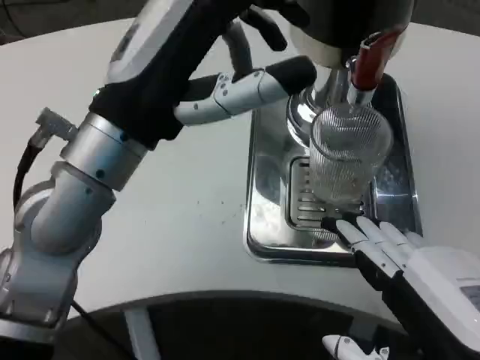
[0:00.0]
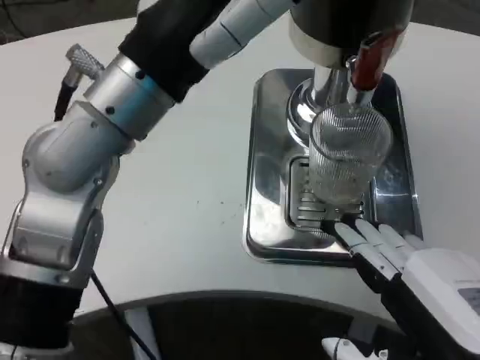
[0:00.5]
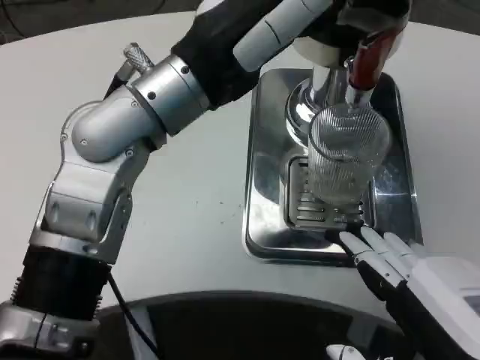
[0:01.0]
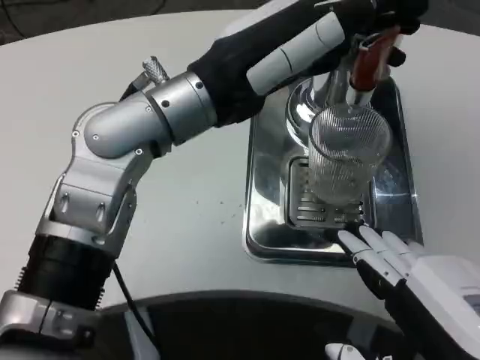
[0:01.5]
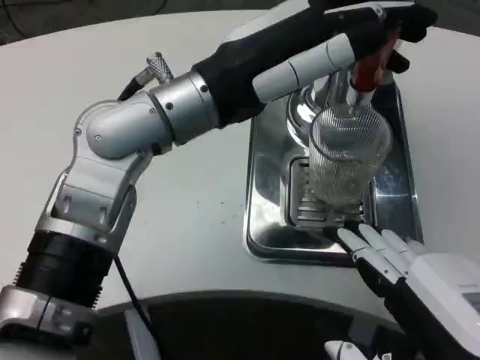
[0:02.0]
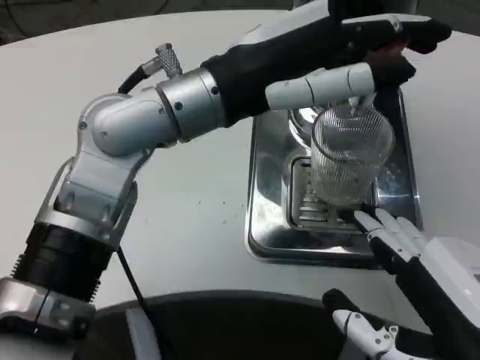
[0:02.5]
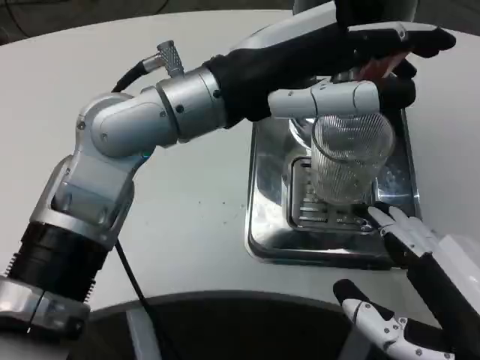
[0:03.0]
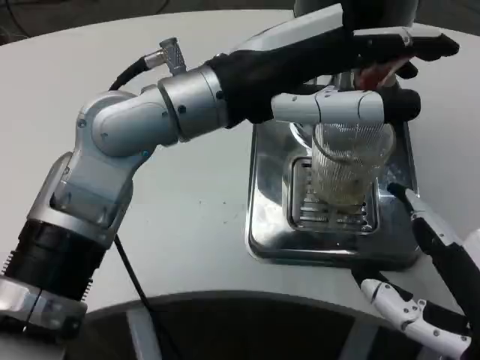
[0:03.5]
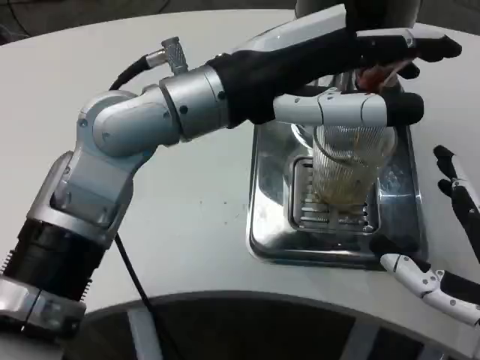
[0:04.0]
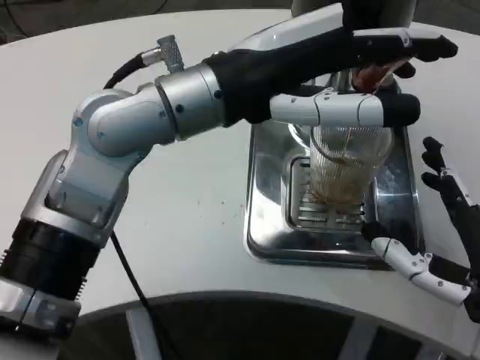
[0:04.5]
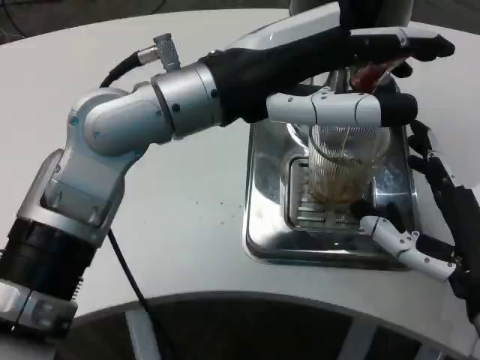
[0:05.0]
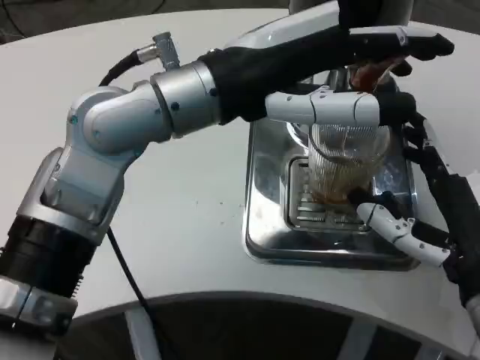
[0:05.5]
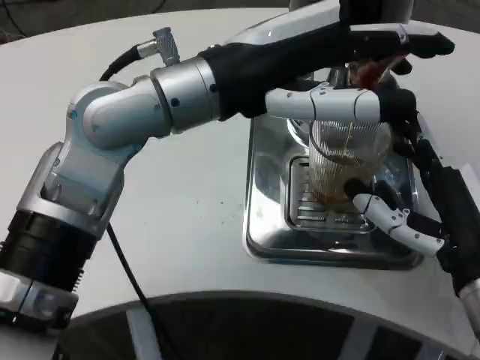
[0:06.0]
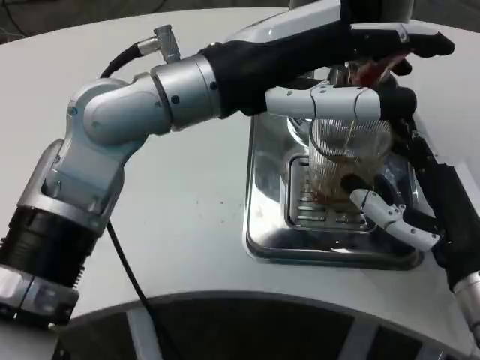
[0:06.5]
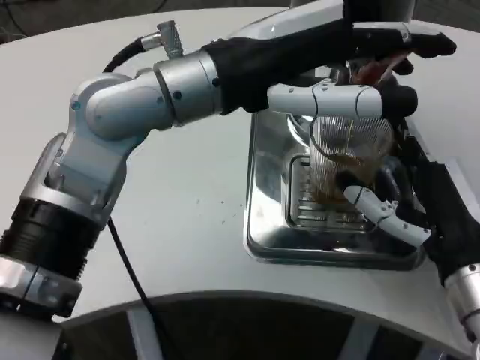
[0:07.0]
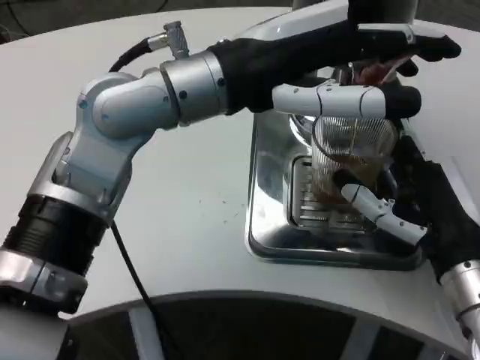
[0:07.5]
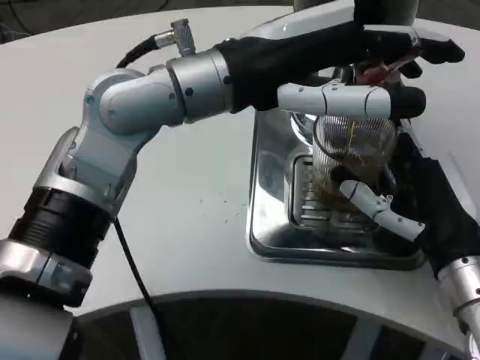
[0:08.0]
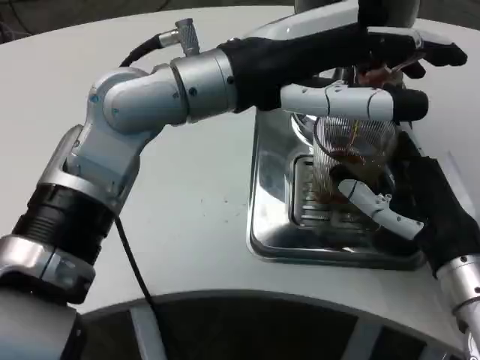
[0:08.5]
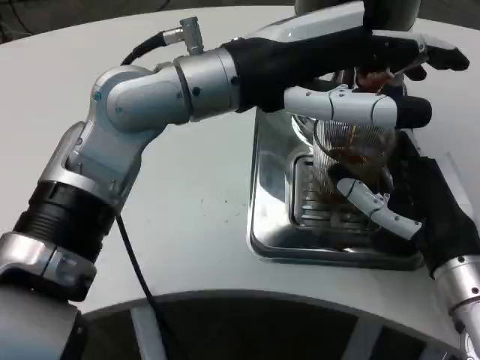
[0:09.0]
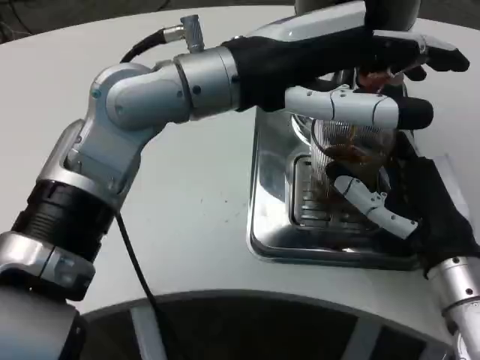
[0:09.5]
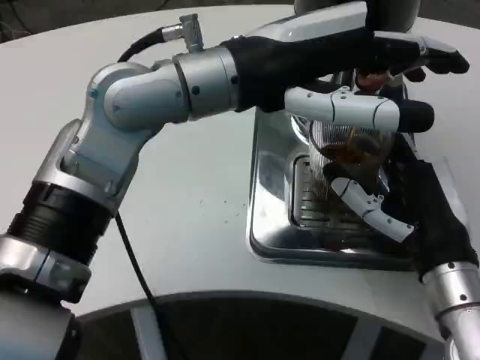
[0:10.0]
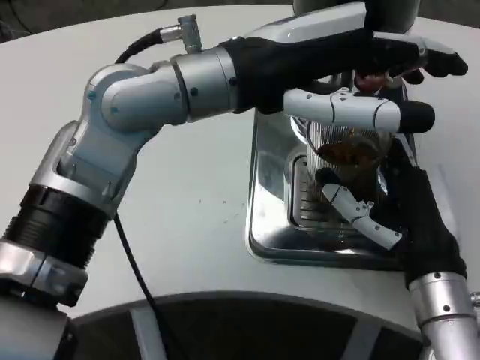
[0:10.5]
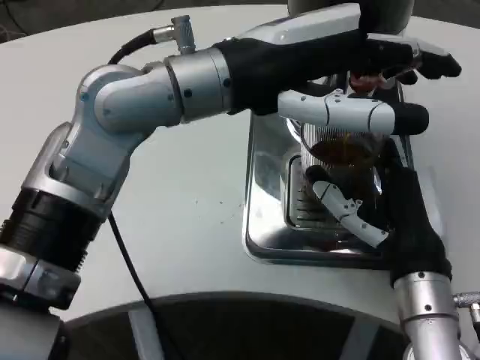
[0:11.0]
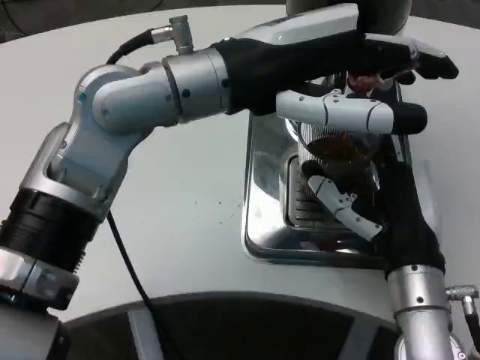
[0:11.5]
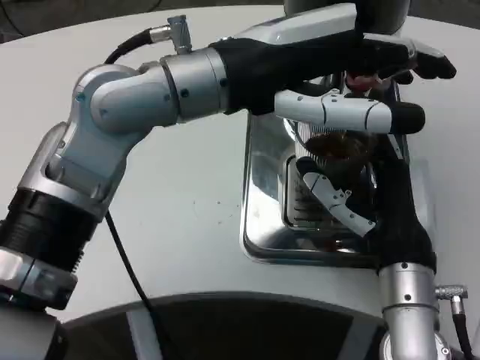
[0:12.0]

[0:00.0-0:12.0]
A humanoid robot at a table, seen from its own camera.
Task of the whole recording: Grasp the cup under the faucet to collect the drink, then remove the cup.
0:00.0 to 0:02.0: The left hand travels forward by approximately 5 cm.
0:02.0 to 0:04.0: The right hand heads forward, covering roughly 5 cm.
0:04.0 to 0:06.0: The right hand heads forward, covering about 5 cm.
0:10.0 to 0:12.0: The right hand ends up about 5 cm from where it was.

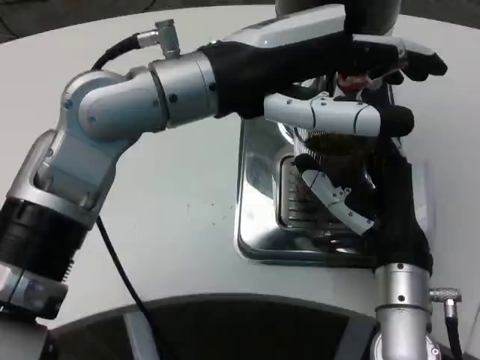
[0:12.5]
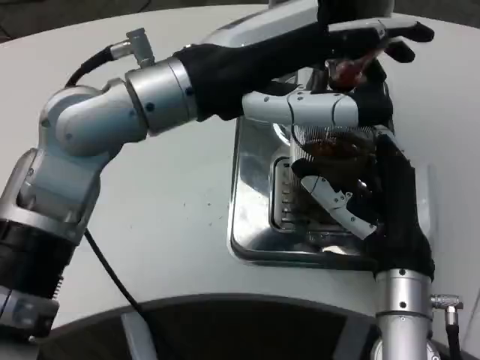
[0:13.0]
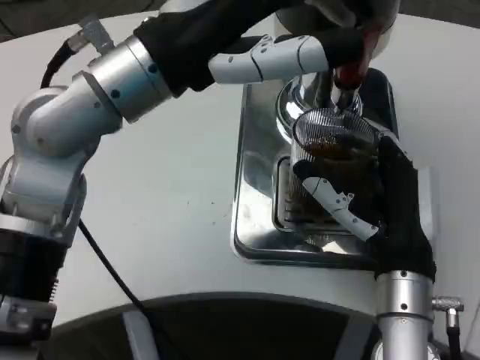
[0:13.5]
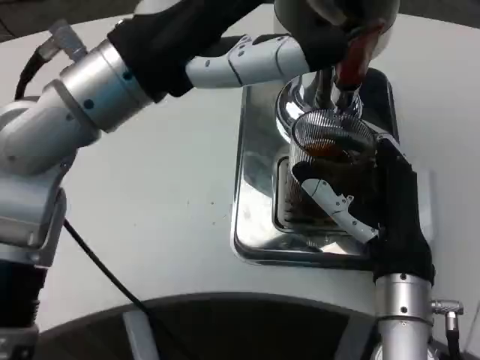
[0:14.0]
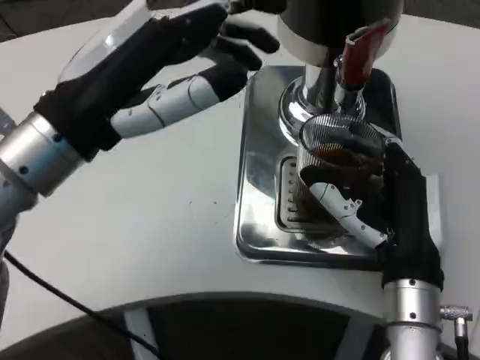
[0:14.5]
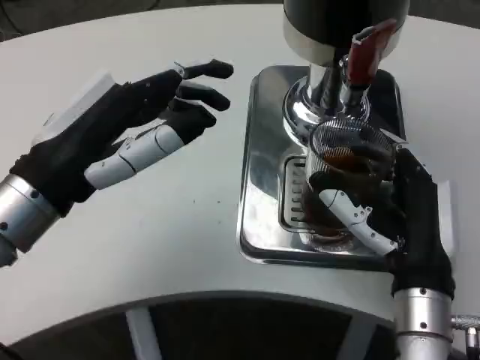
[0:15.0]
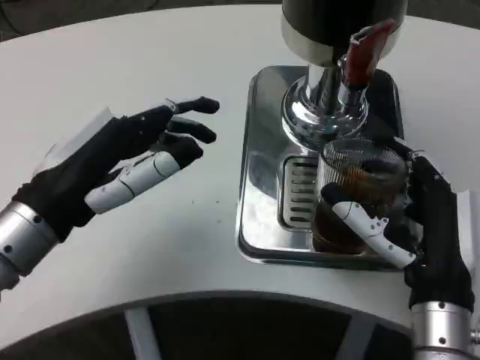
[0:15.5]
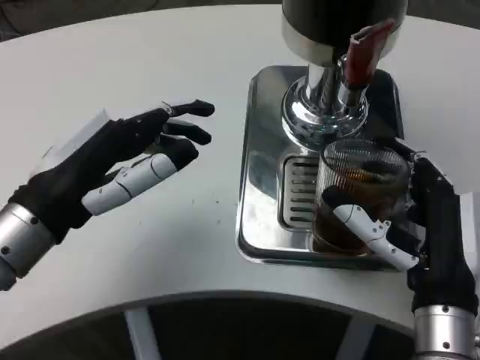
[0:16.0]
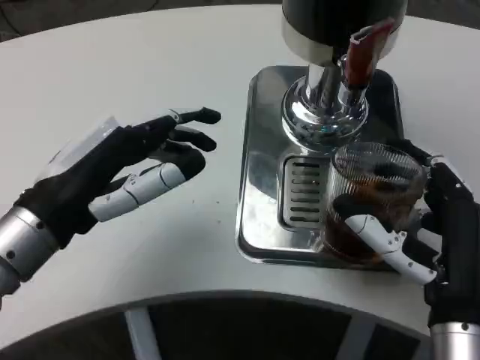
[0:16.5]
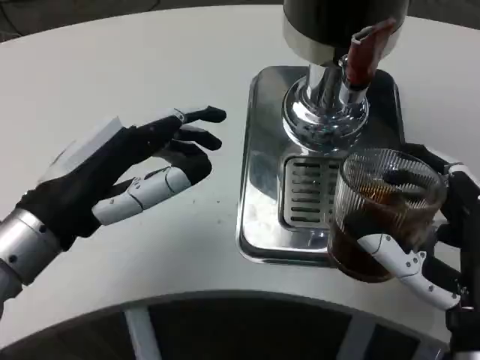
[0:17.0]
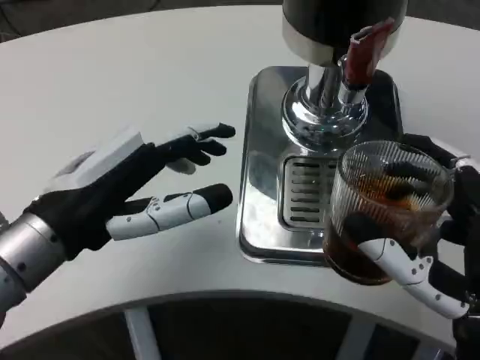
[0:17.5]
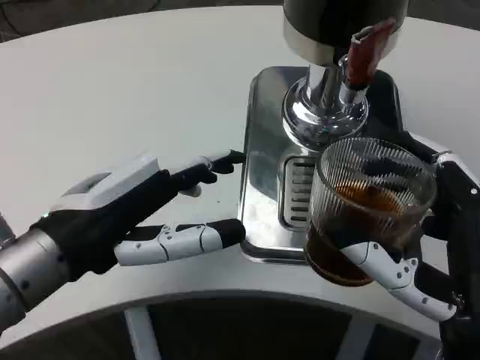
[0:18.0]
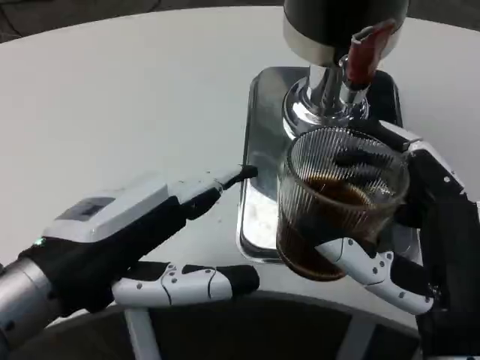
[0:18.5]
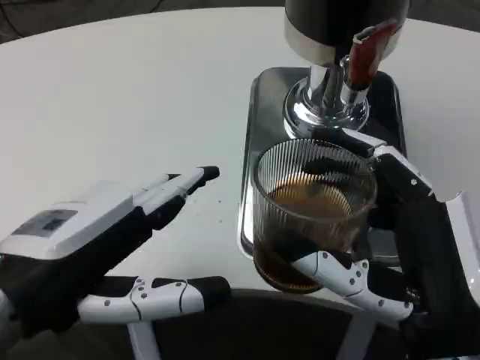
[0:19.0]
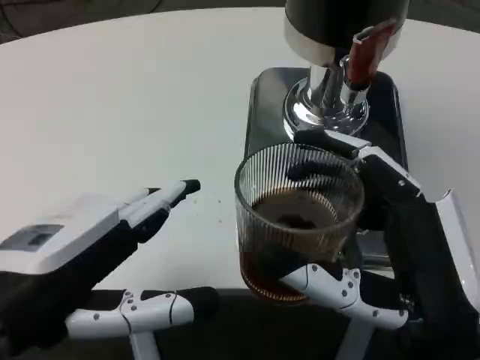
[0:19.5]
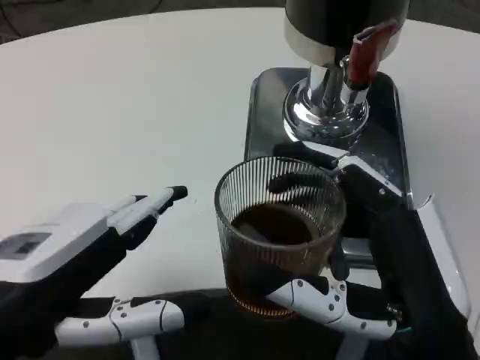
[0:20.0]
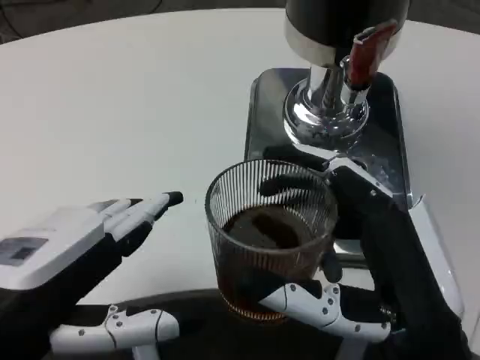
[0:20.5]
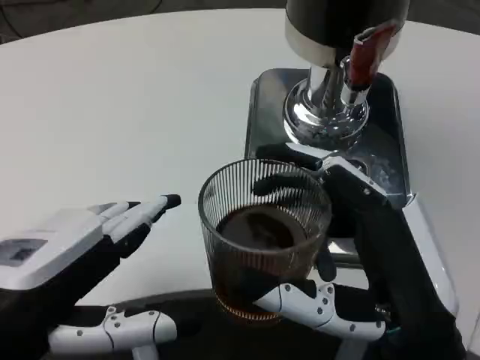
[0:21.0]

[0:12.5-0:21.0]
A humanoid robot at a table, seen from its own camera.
Task of the whole recording: Grasp the cup under the faucet to collect the drink, then remove the cup.
0:12.5 to 0:14.5: The left hand travels to the left and downward by approximately 10 cm.
0:14.5 to 0:16.5: The right hand moves some 5 cm, while the left hand is displaced downward by some 5 cm.
0:16.5 to 0:19.0: The right hand ends up some 5 cm from where it was. Meanwhile the left hand heads backward, covering about 10 cm.

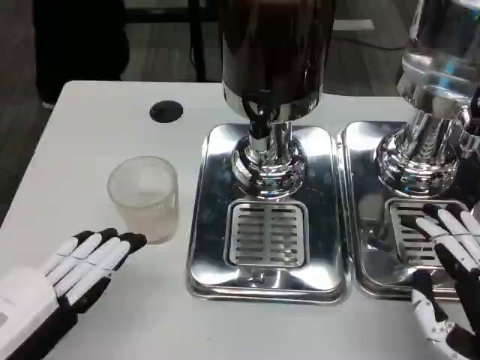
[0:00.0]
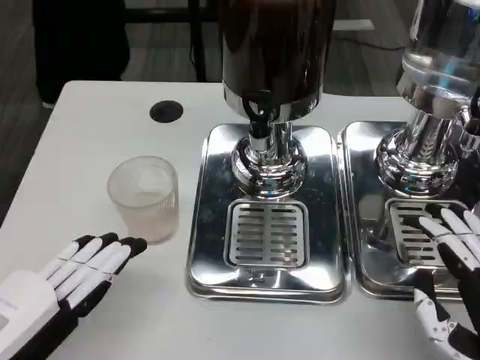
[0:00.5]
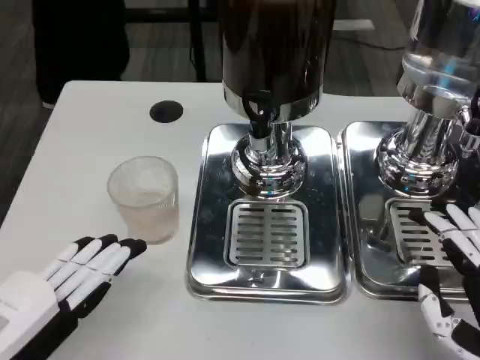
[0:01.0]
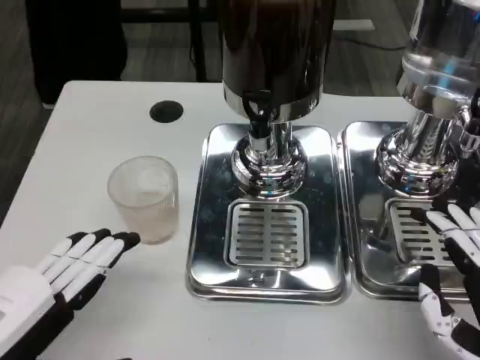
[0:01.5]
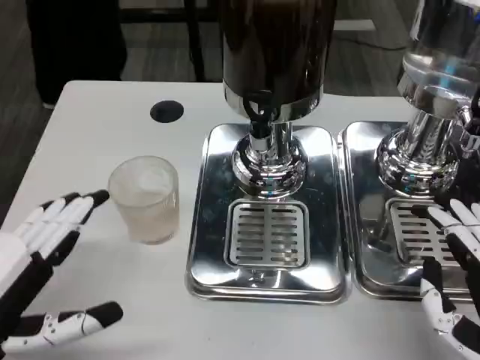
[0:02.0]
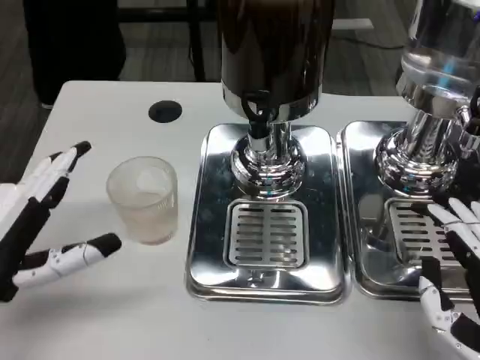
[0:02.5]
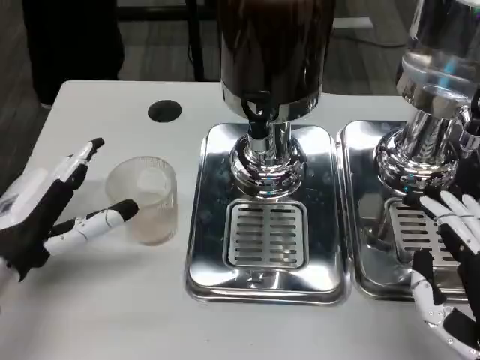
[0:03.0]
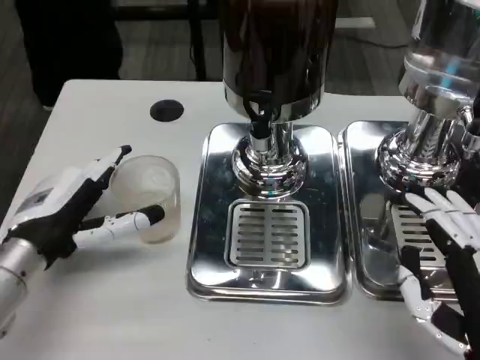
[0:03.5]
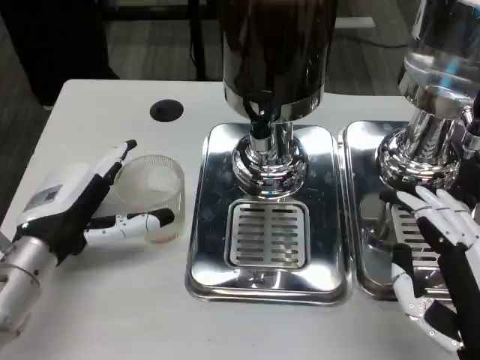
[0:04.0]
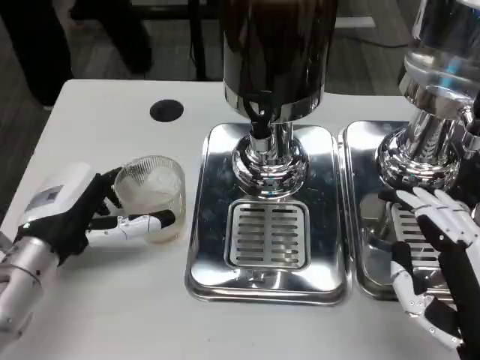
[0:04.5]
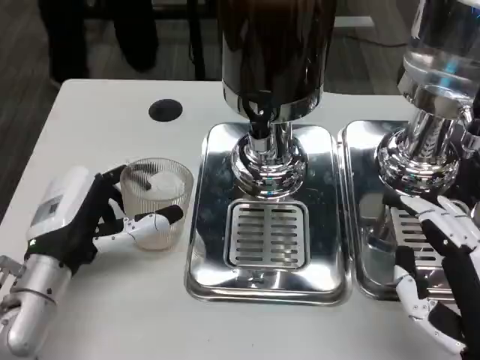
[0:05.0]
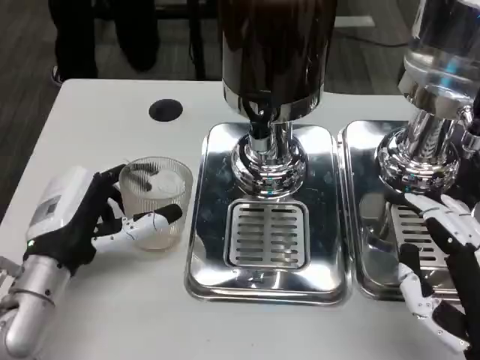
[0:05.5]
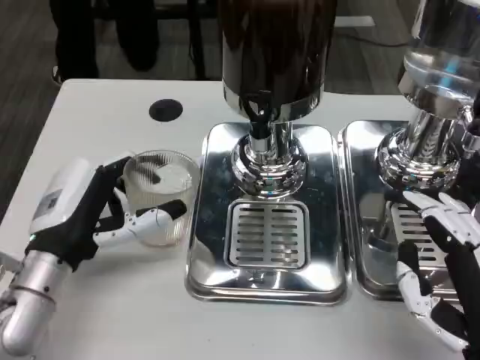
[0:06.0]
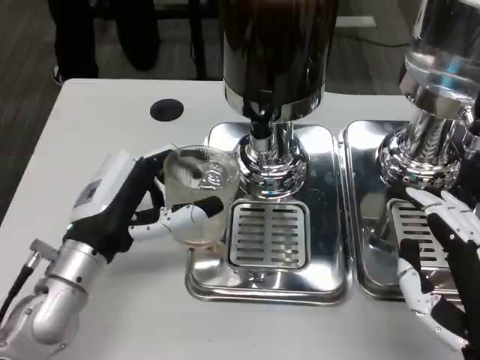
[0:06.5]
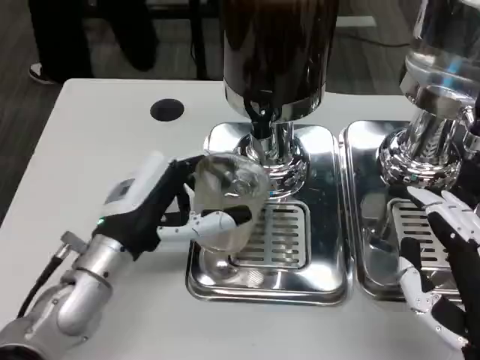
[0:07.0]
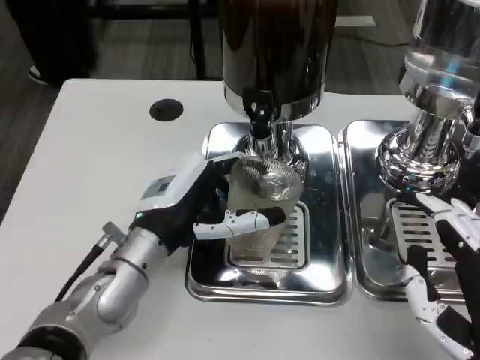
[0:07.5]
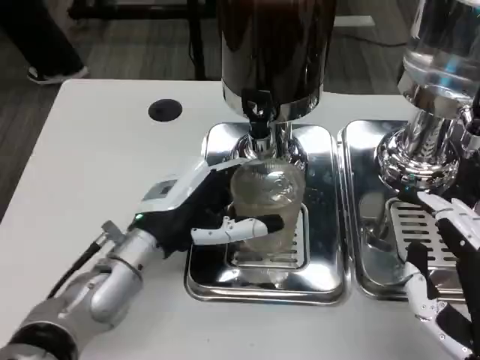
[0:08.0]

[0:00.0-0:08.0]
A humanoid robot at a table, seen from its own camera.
Task of the whole recording: Grasp the cup under the faucet to collect the drink, then remove the cup.
0:00.0 to 0:02.0: The hands stay close to where they were, moving slightly.
0:02.0 to 0:04.0: The left hand travels forward by roughly 10 cm.
0:04.0 to 0:06.0: There are only small adjustments of the hands.
0:06.0 to 0:08.0: The left hand moves to the right, about 5 cm.
